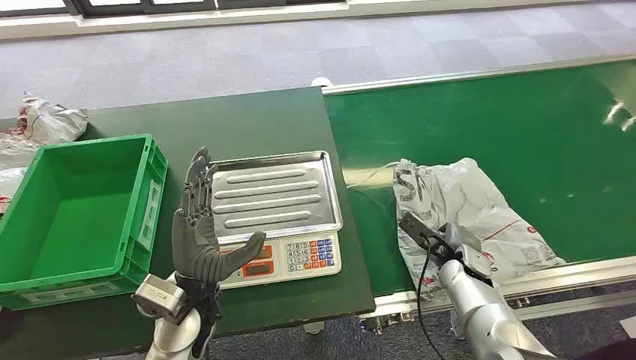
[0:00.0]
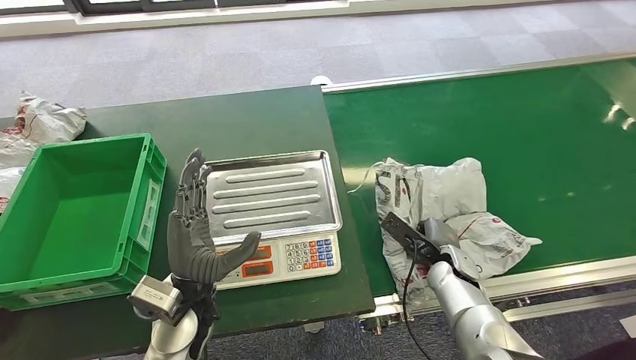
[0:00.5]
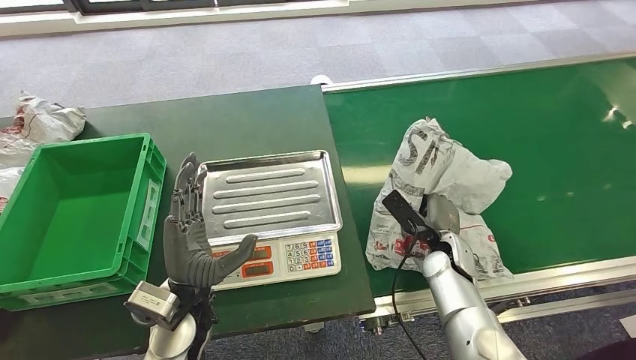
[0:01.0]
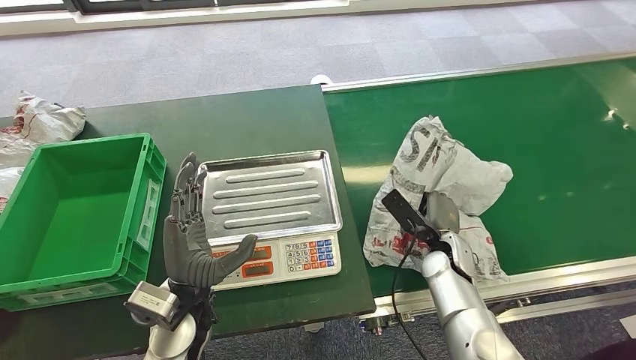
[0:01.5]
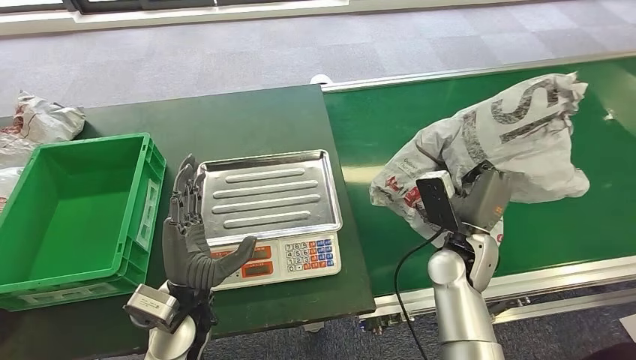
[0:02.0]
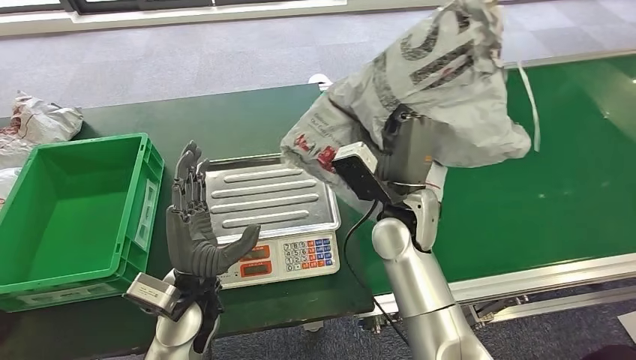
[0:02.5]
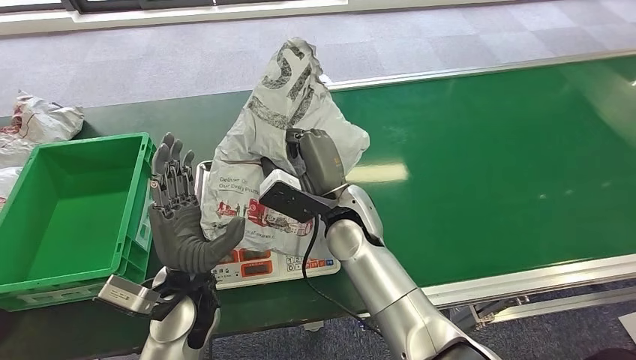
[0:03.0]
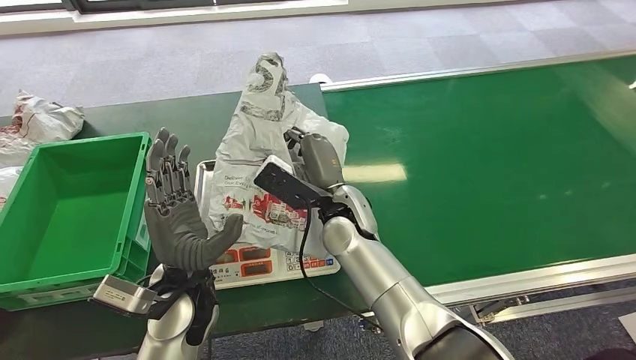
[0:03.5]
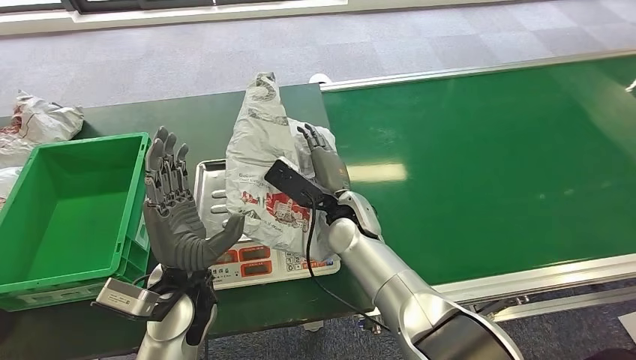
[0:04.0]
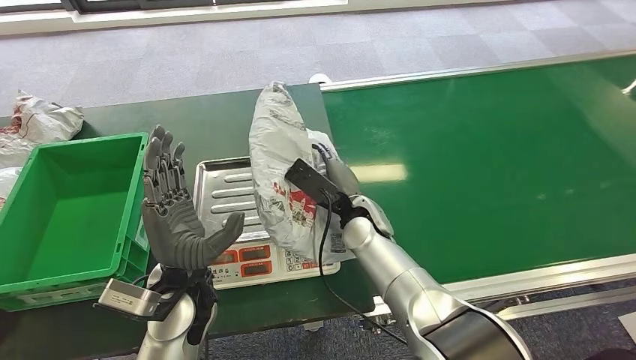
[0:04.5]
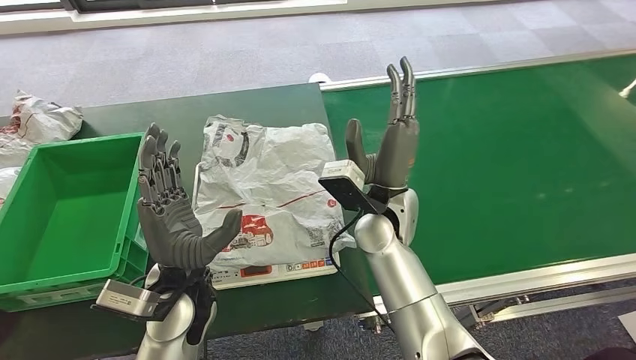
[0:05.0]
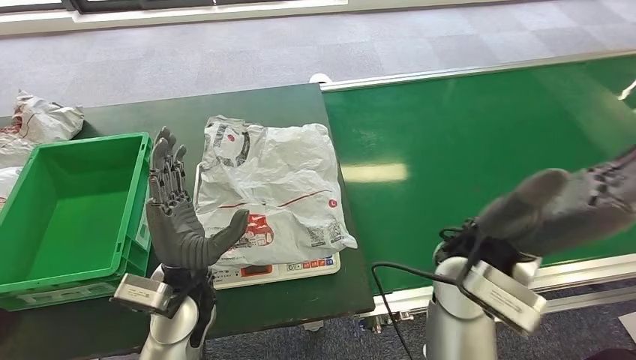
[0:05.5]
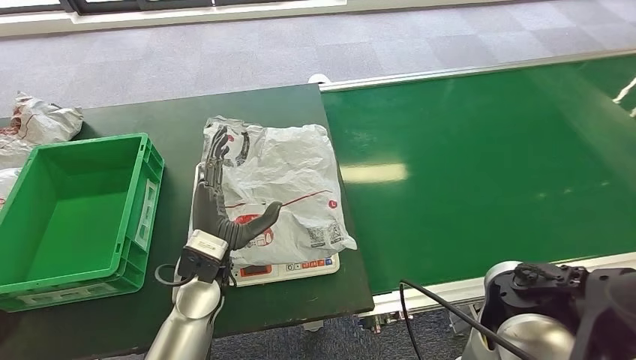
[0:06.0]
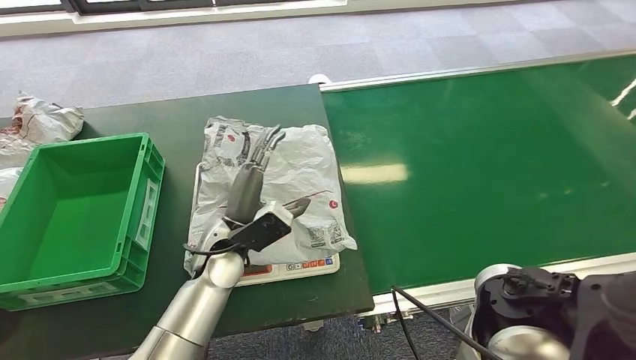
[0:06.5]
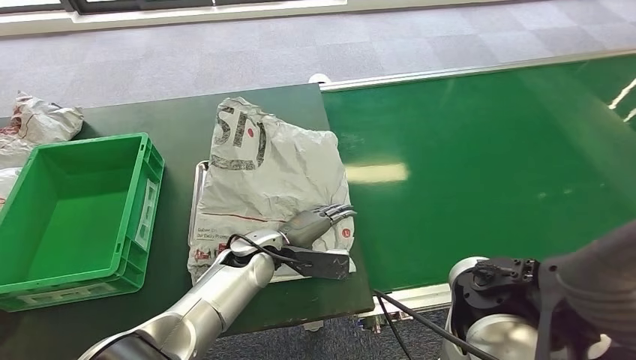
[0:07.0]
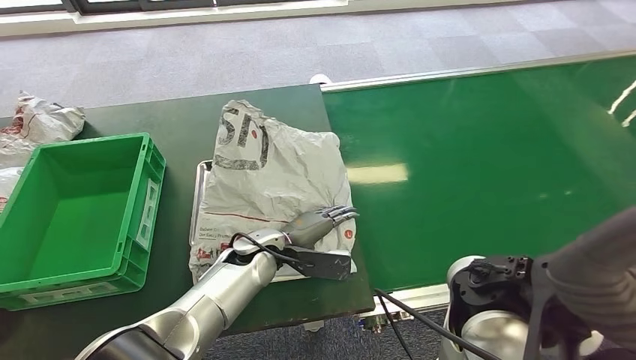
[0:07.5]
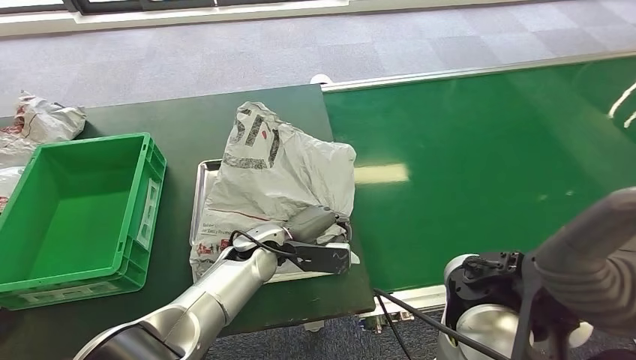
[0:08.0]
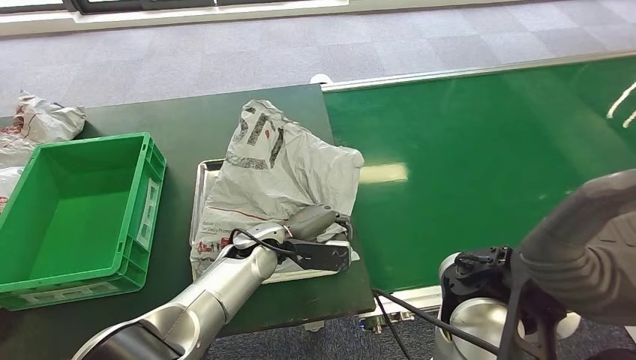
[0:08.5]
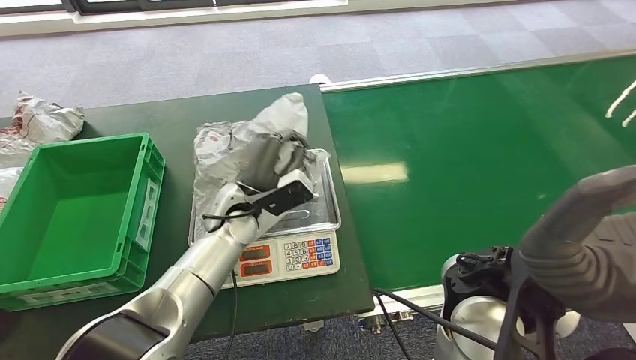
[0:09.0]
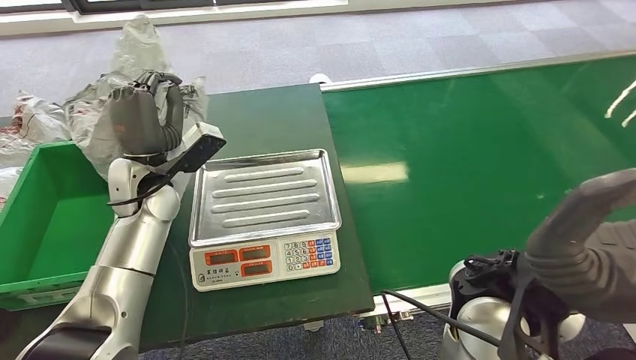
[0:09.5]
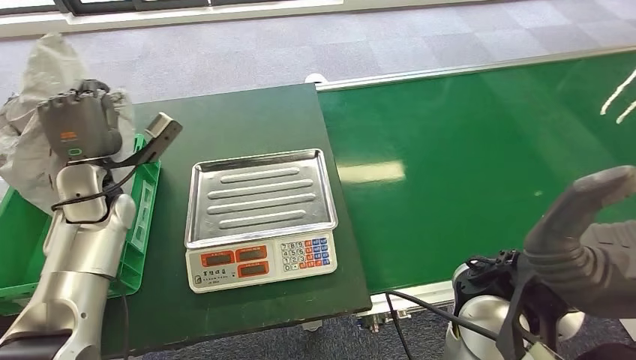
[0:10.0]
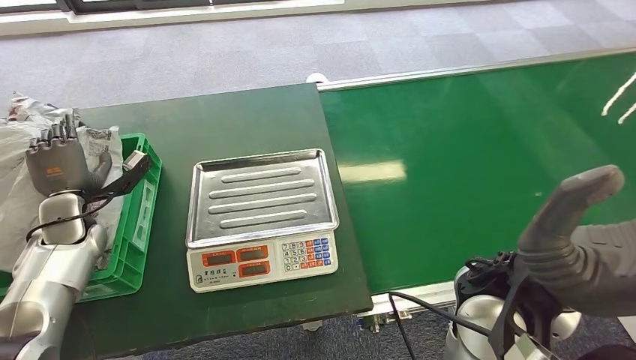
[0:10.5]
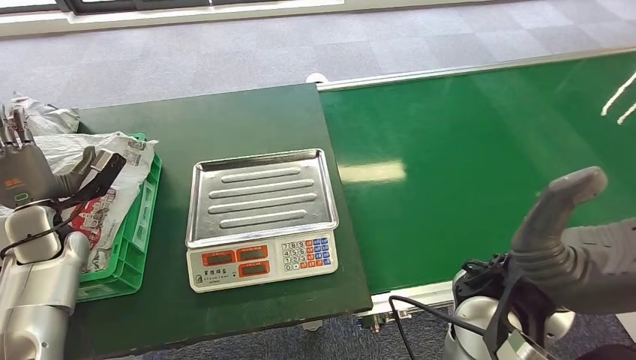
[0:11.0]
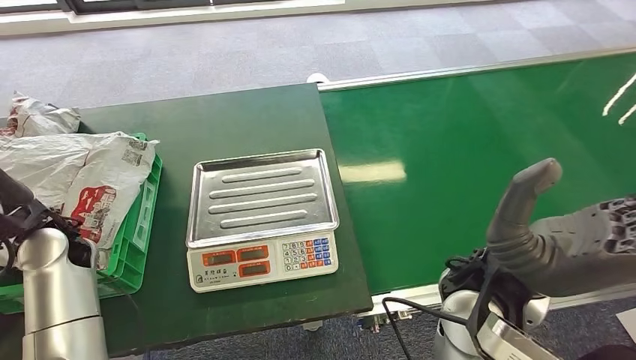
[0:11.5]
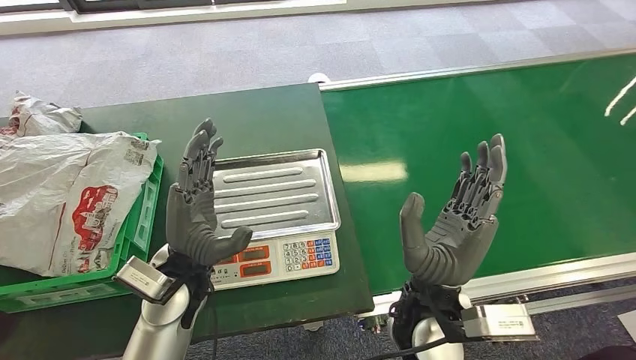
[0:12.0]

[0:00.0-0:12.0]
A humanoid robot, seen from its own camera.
Task of the whole recording: Weigh the package on the weighing device and place it in the left basket.
Step, 0:00.0 to 0:02.0: Pick up the package from the conveyor belt.
Step, 0:02.5 to 0:06.0: Place the package onto the inbound machine.
Step, 0:06.5 to 0:09.5: Pick up the package from the inbound machine.
Step, 0:10.0 to 0:12.0: Place the package into the parcel locker.
0:06.0 to 0:08.0: The left hand heads forward, to the right and downward, covering roughly 10 cm.
